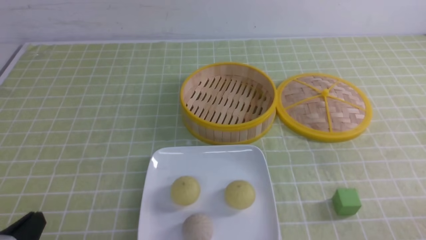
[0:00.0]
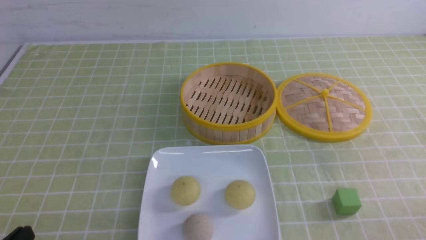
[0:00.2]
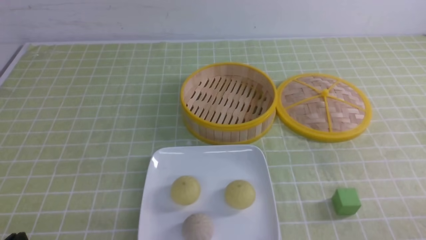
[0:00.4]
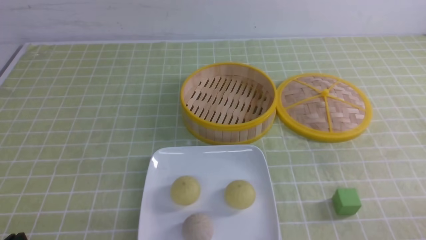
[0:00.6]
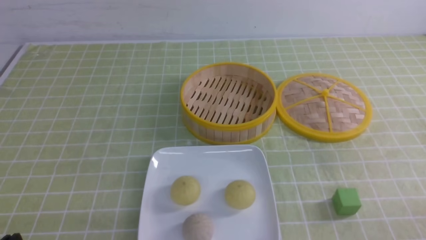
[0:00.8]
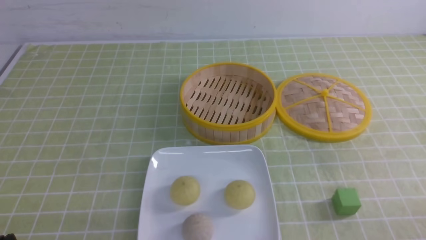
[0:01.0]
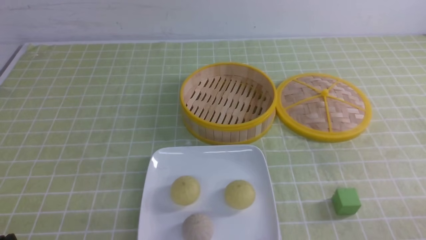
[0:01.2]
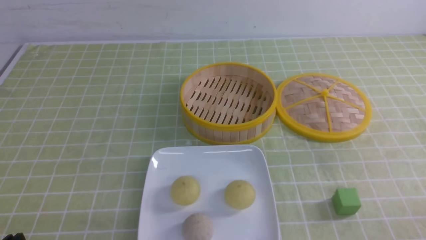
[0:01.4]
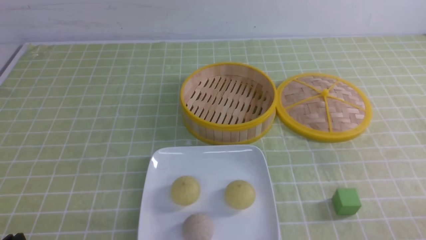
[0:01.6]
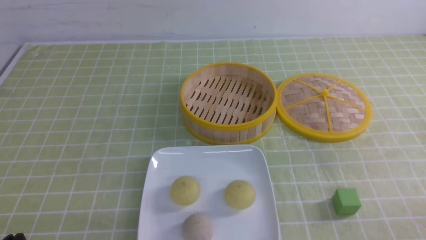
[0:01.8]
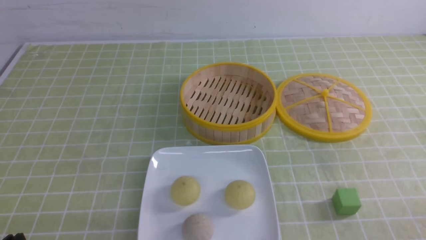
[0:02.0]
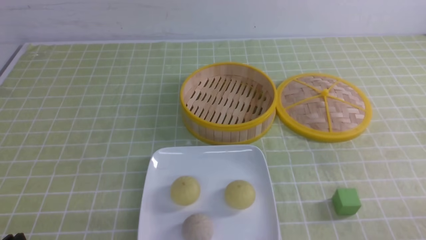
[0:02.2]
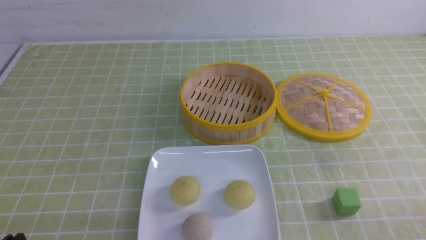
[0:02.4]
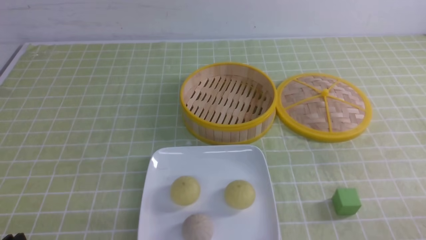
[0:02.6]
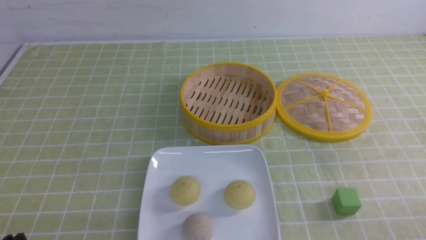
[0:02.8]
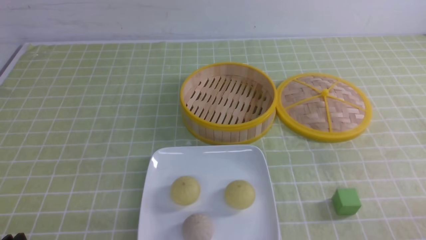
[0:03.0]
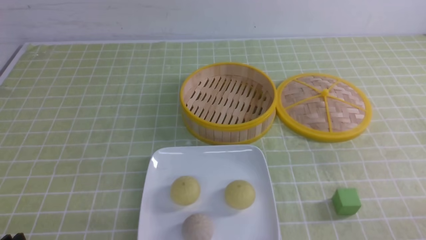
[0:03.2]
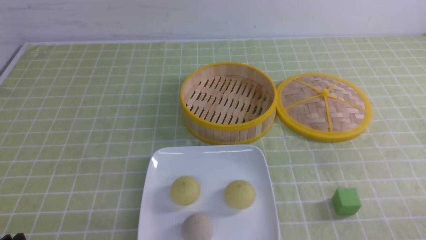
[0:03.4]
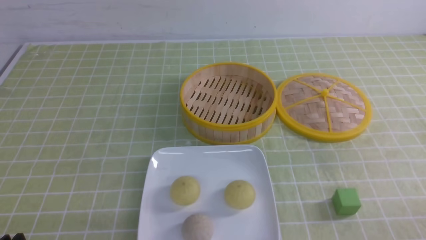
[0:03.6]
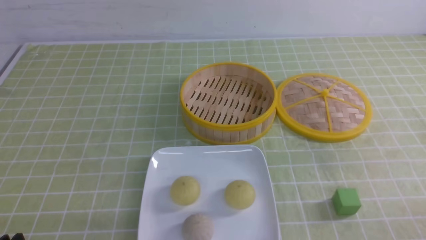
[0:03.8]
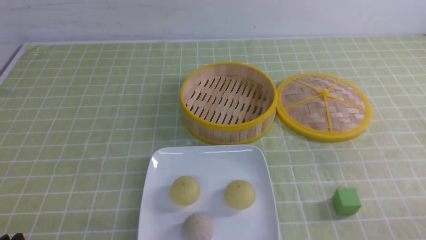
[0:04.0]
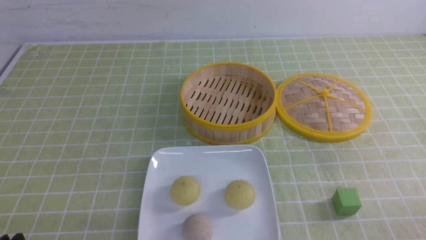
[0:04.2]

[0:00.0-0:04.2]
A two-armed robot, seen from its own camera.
0:01.4 to 0:04.2: Both grippers stay about where they are.
